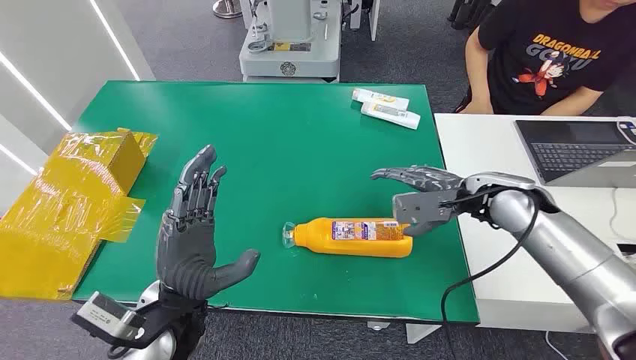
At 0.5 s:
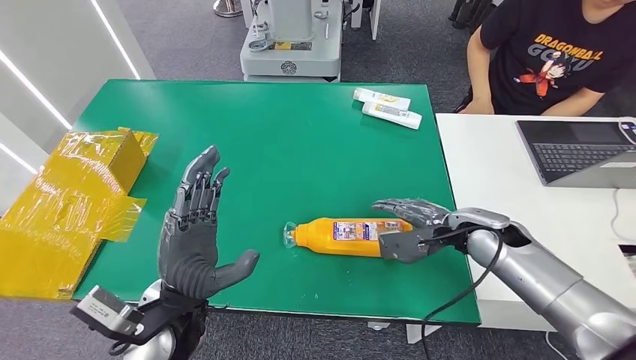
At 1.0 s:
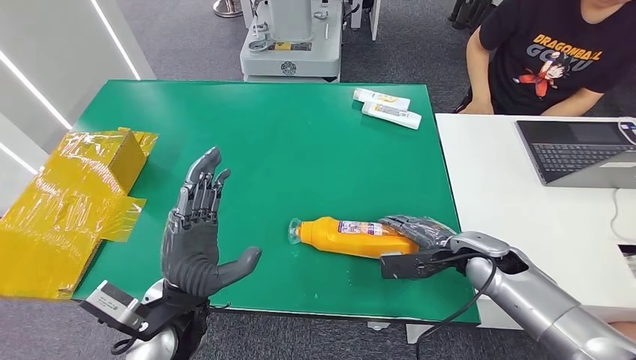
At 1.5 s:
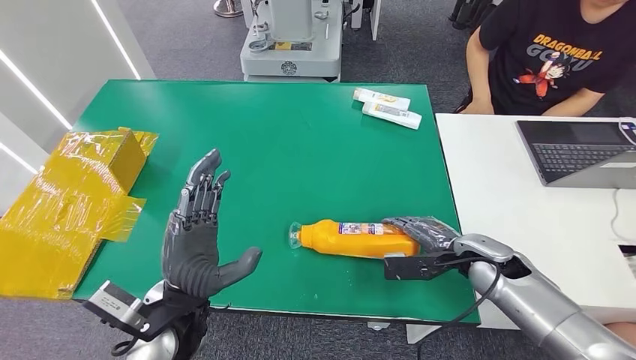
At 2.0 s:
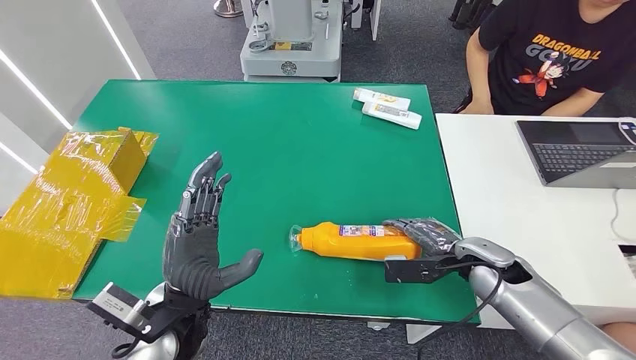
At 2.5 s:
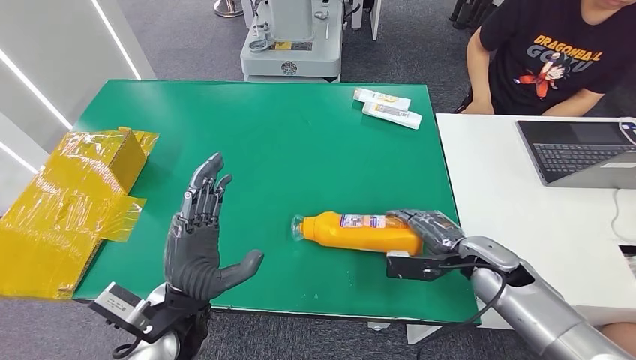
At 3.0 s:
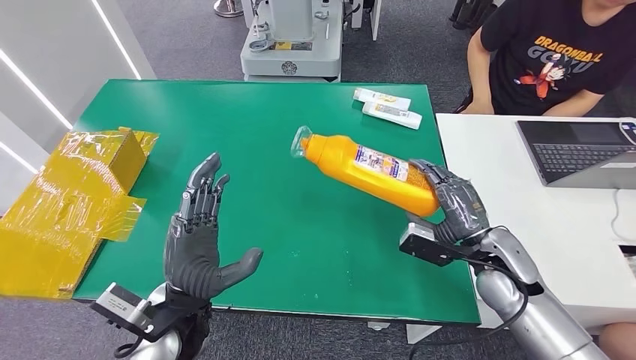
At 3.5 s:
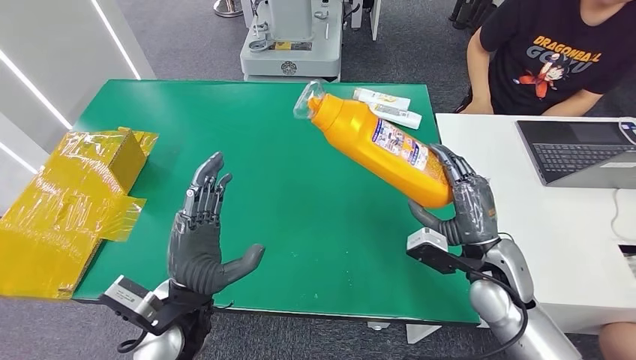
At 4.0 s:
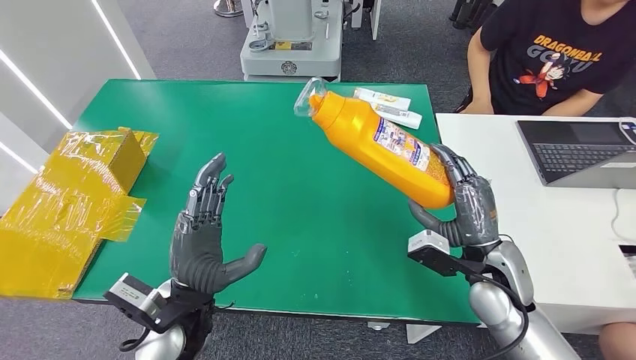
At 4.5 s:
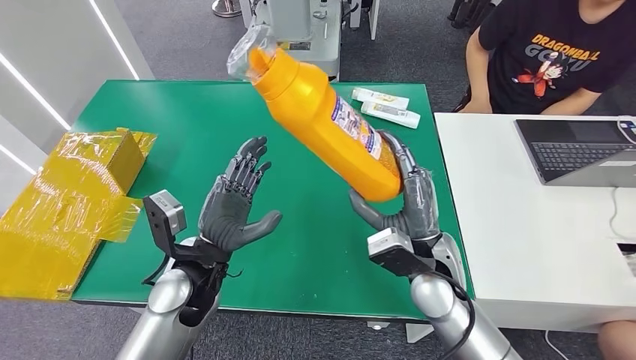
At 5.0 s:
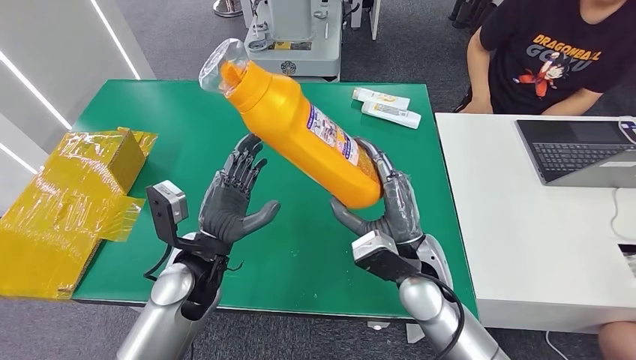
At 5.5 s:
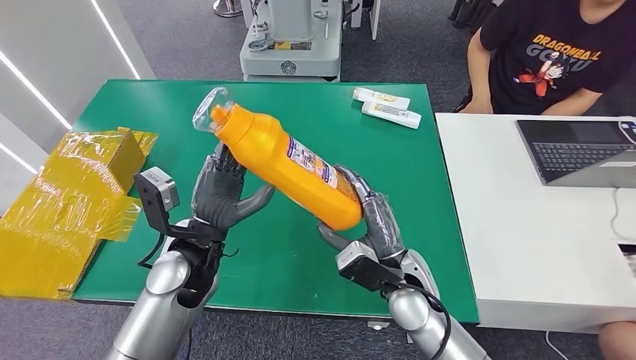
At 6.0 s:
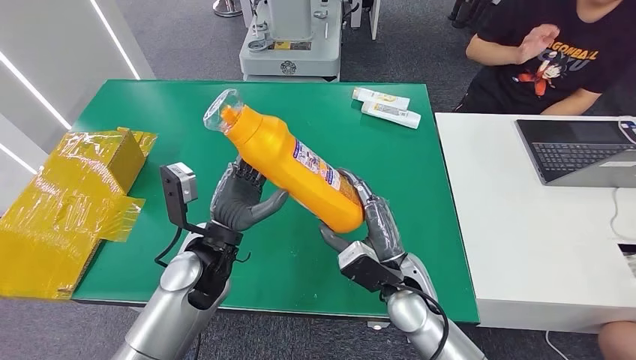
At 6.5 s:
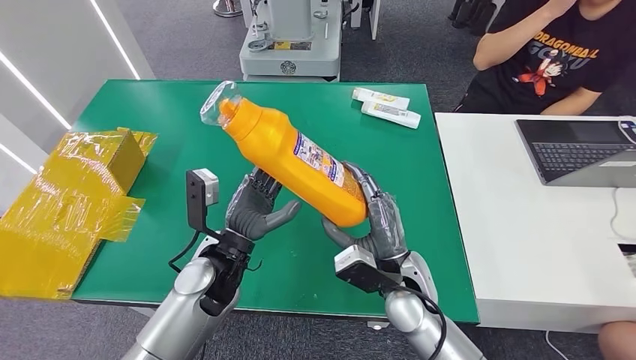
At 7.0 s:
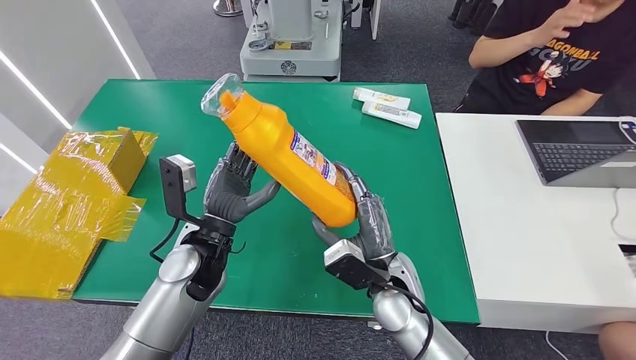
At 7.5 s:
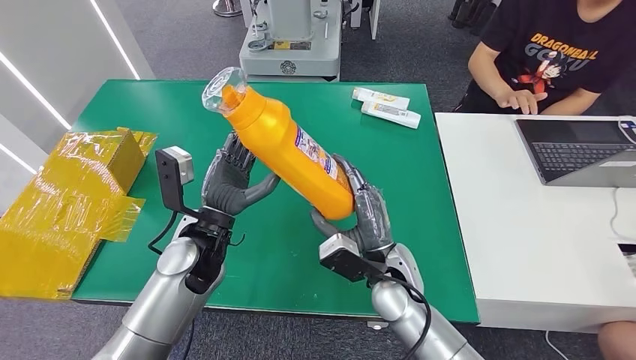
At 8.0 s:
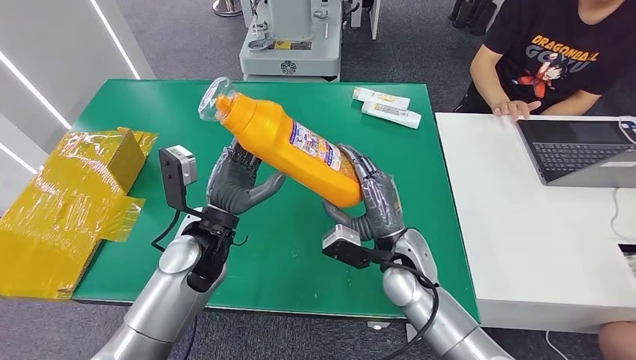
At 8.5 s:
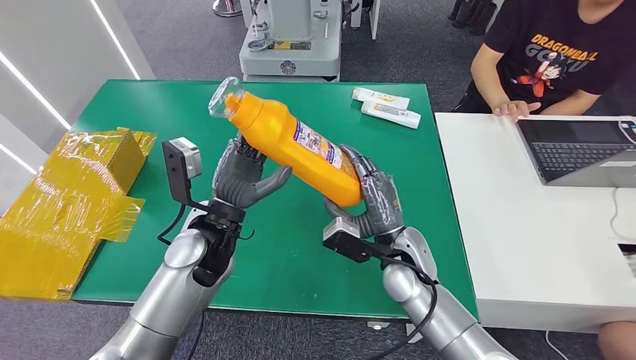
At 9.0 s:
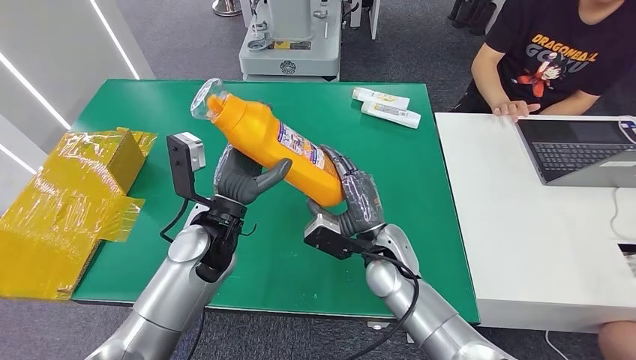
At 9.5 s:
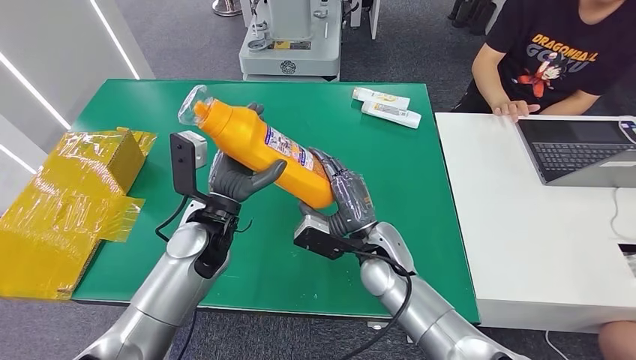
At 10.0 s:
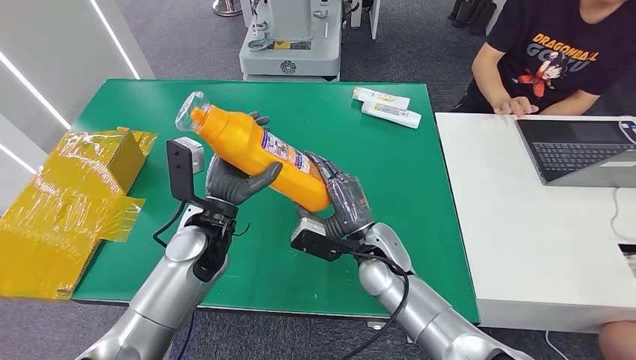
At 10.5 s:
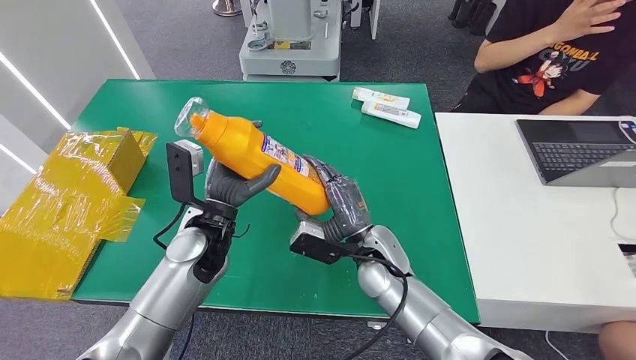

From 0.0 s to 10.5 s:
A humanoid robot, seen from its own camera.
Step, from 0.0 s to 5.0 s: Pick up the bottle from the table.
From 2.0 s to 4.0 s: The right hand moves roughly 5 cm.
From 6.5 s to 8.5 s: The left hand changes place by approximately 5 cm.
From 8.5 s to 10.5 s: The hands move only a little.

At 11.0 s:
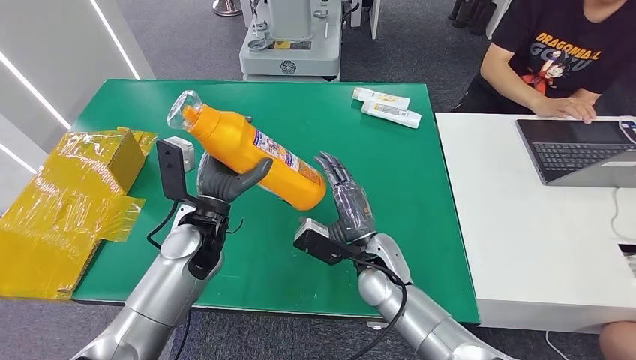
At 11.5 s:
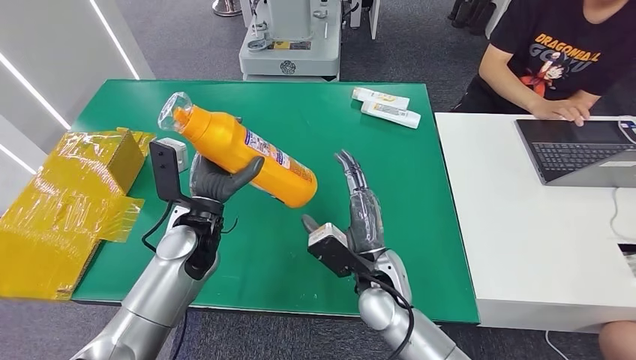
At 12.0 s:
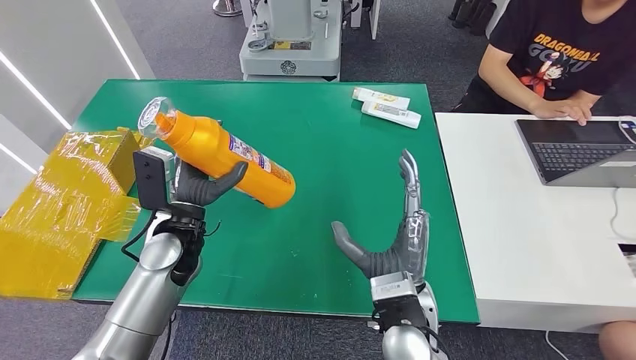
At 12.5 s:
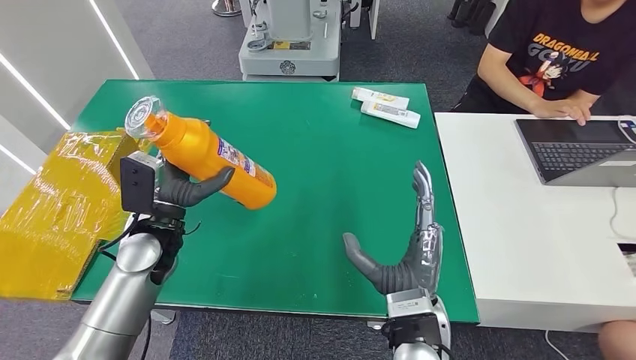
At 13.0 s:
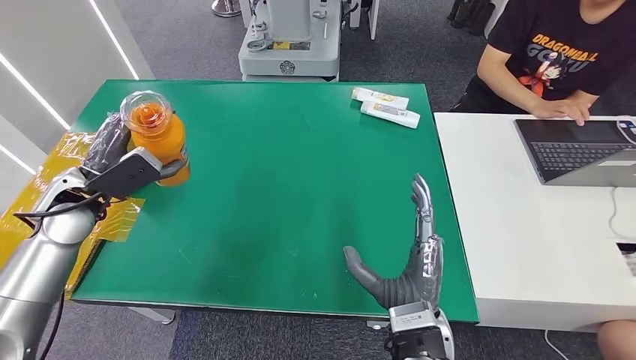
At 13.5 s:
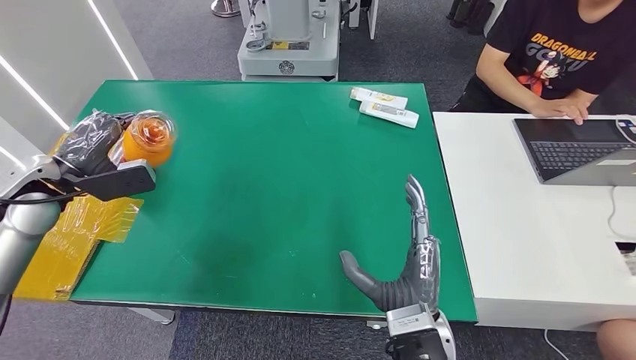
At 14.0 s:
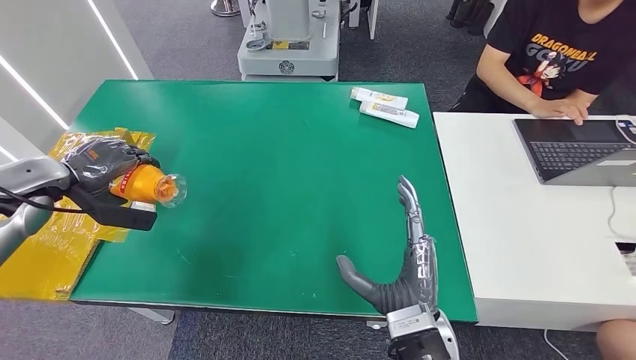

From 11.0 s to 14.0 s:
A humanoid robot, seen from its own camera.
Step, from 11.0 s to 14.0 s: Turn the bottle to the front side.
From 11.0 s to 12.5 s: The left hand is displaced to the left by approximately 10 cm. The right hand shifts some 10 cm backward.
From 12.5 s to 14.0 s: The left hand shifts some 25 cm to the left and upward.

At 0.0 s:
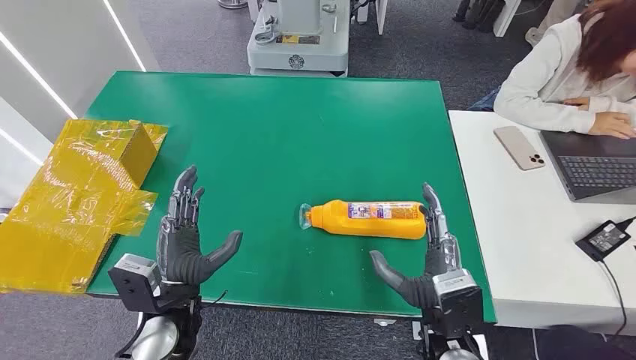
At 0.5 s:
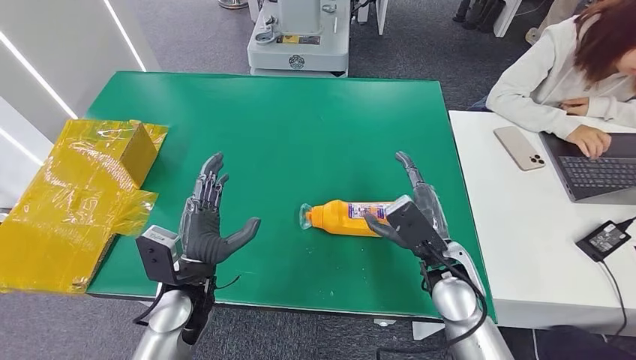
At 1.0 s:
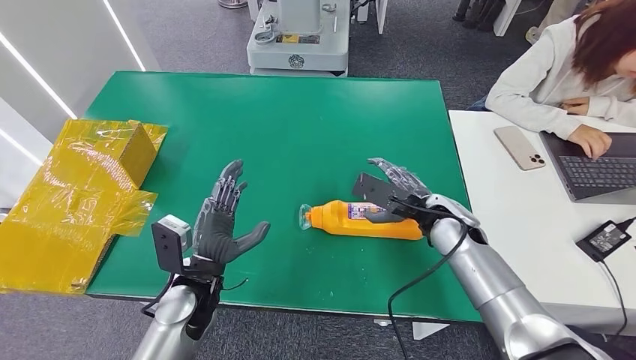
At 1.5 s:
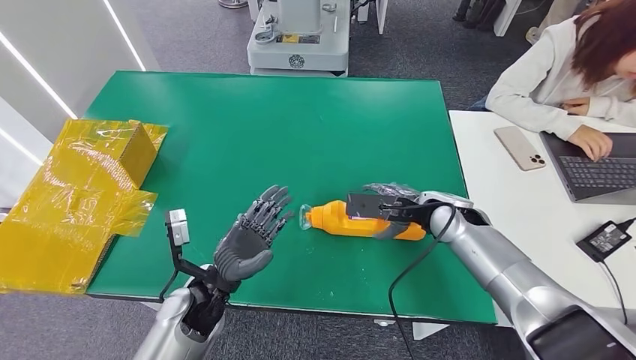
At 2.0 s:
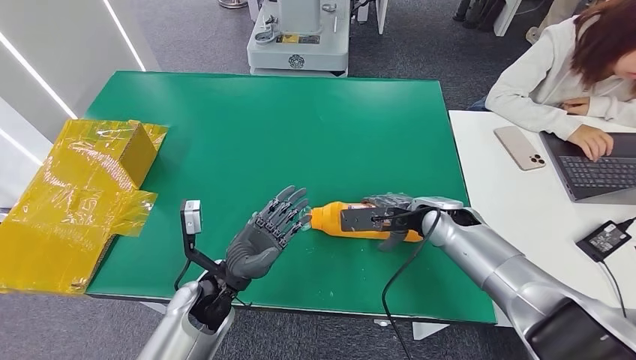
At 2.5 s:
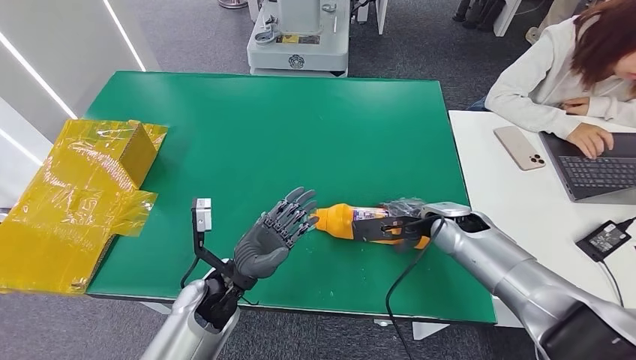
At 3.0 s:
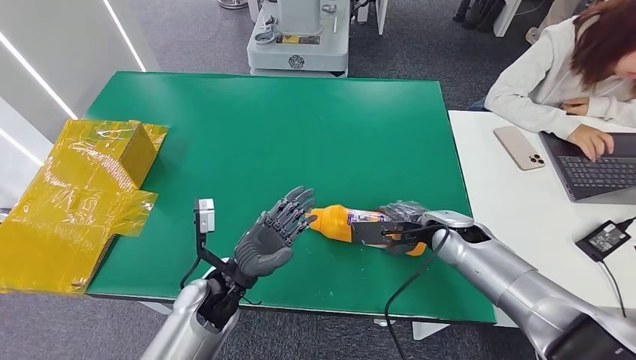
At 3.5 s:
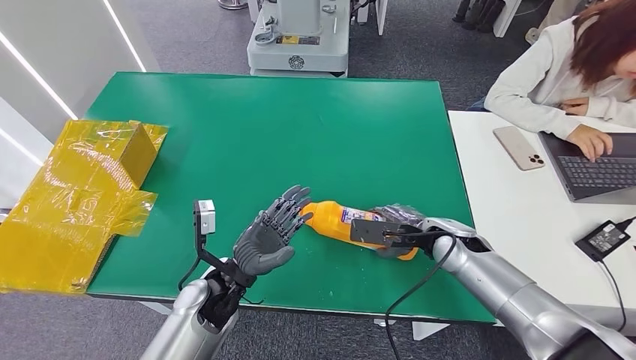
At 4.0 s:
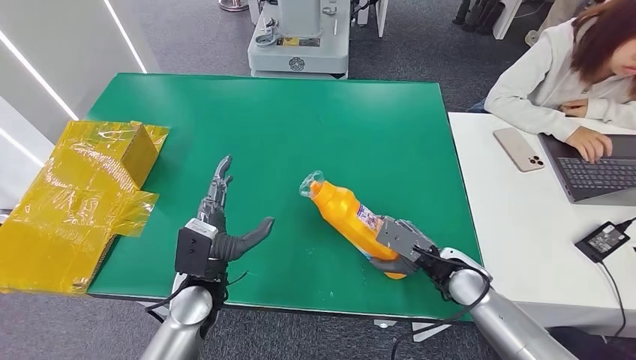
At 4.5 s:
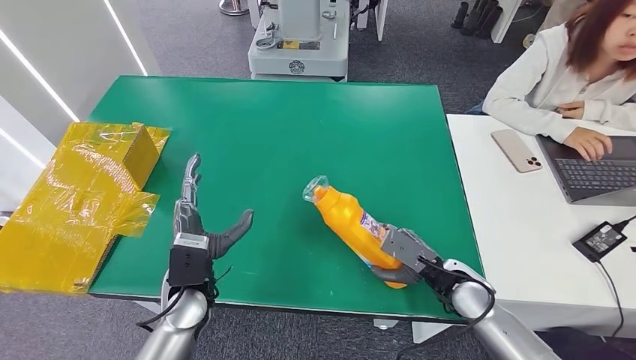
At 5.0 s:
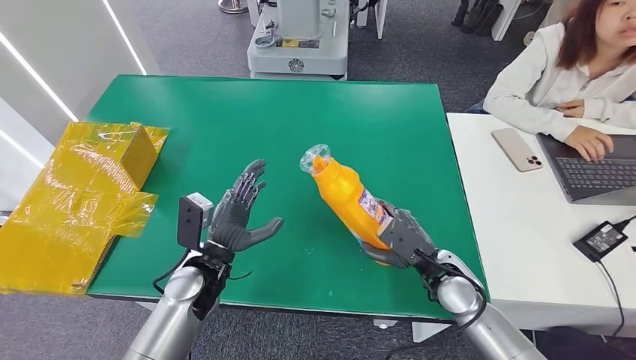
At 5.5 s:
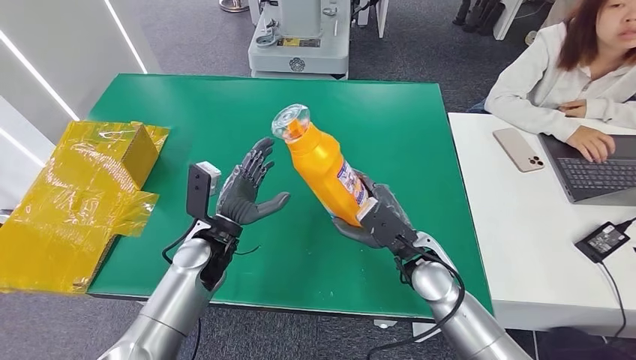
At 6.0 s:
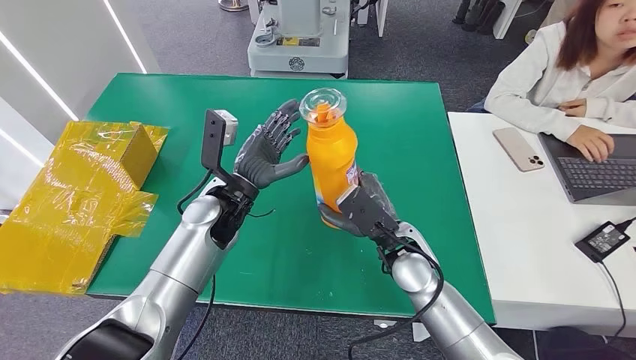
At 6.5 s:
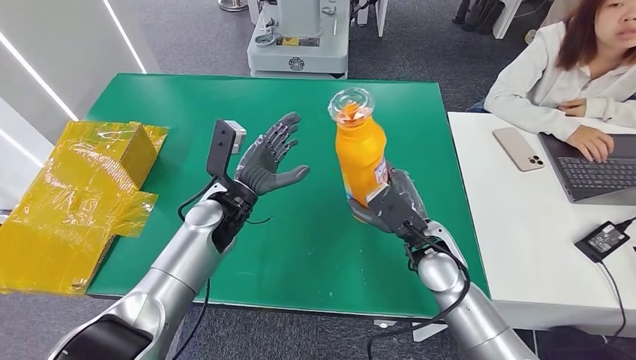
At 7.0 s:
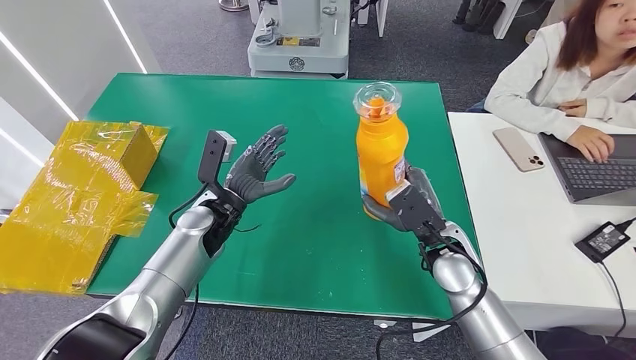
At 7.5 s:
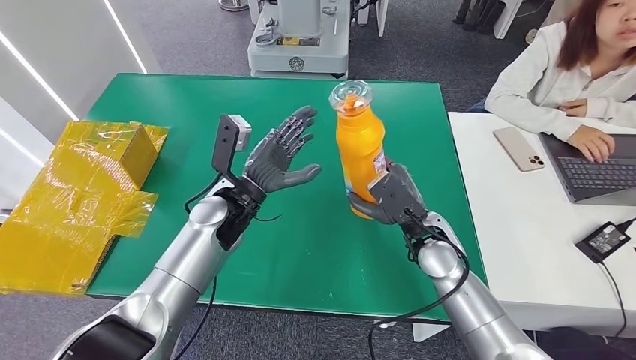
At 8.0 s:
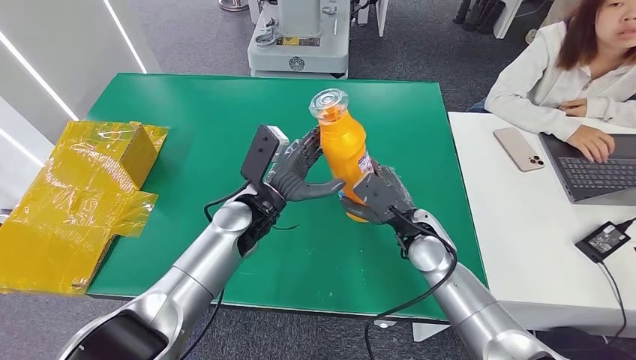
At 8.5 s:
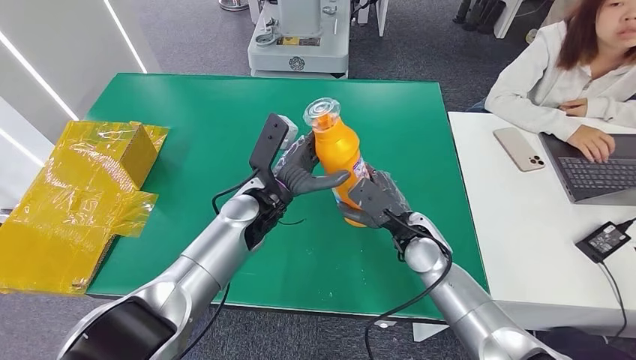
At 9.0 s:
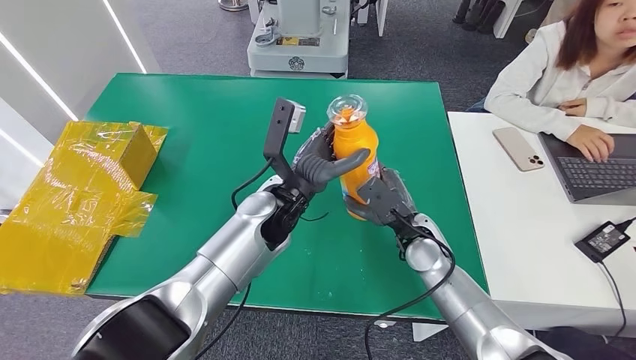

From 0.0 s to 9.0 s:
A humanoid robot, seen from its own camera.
Step, from 0.0 s to 5.0 s: Pick up the bottle from the table.
From 7.0 s to 9.0 s: The left hand moves to the right and upward, about 15 cm.
